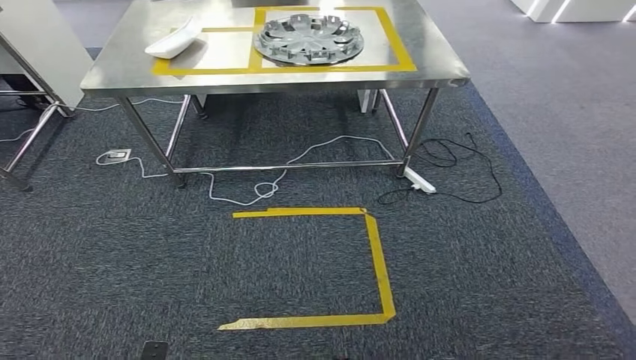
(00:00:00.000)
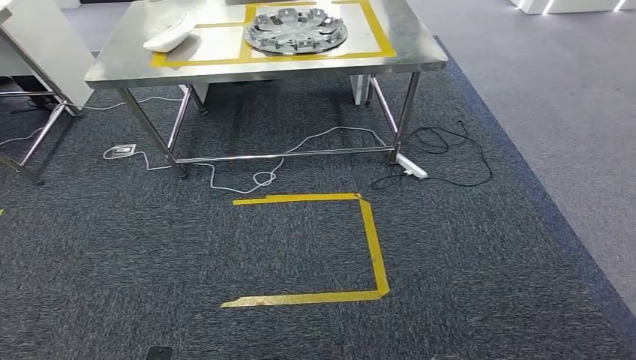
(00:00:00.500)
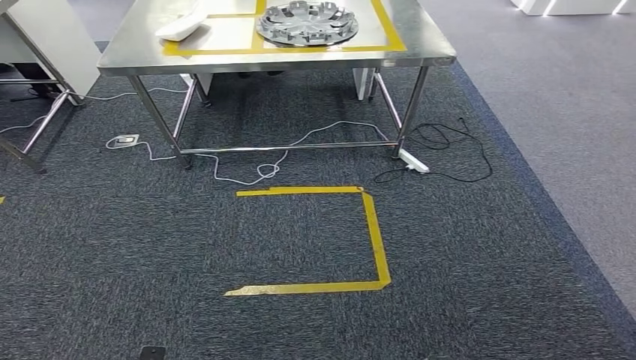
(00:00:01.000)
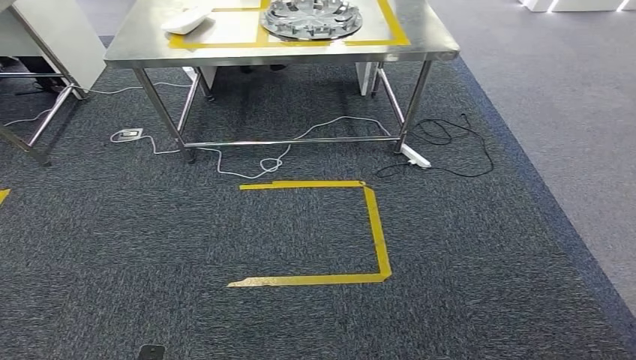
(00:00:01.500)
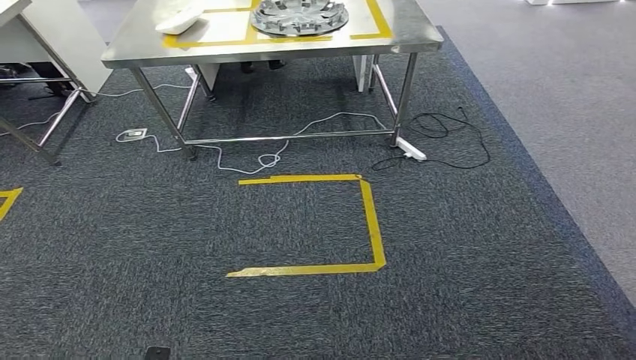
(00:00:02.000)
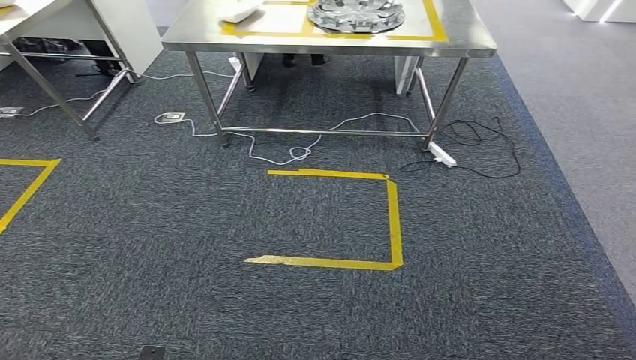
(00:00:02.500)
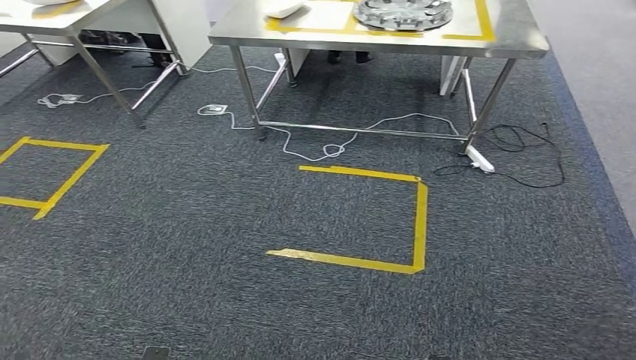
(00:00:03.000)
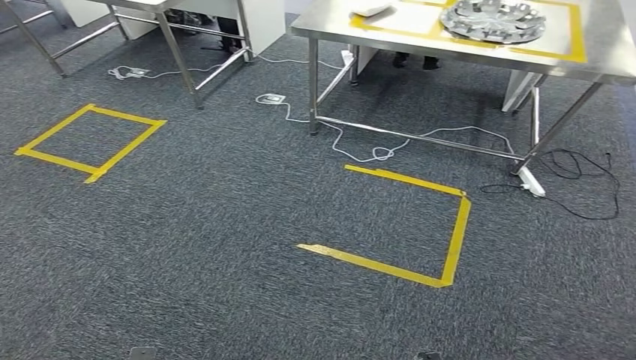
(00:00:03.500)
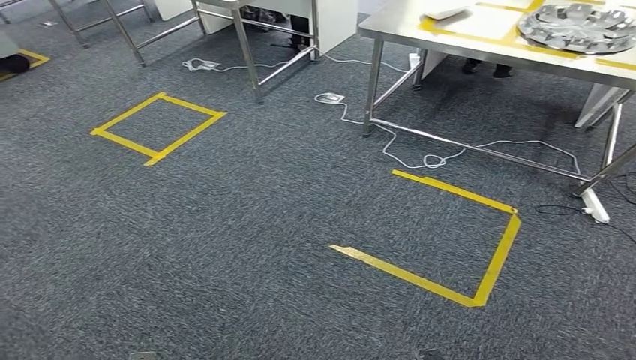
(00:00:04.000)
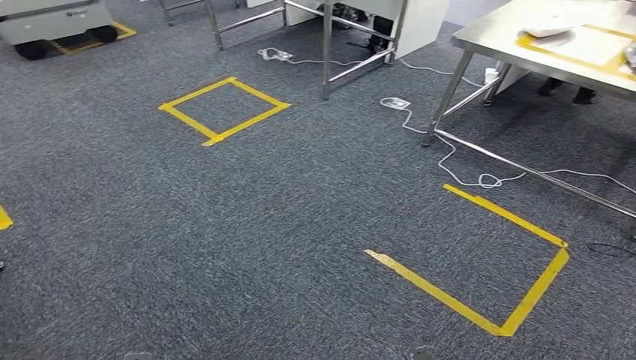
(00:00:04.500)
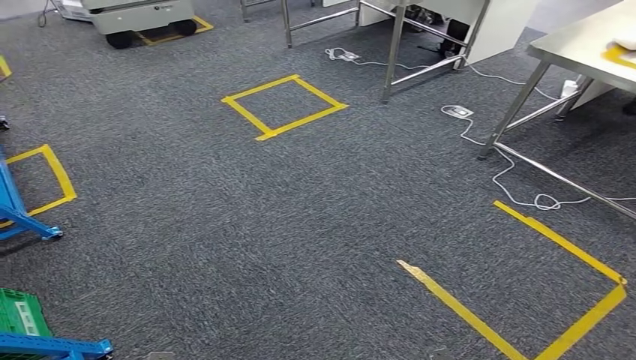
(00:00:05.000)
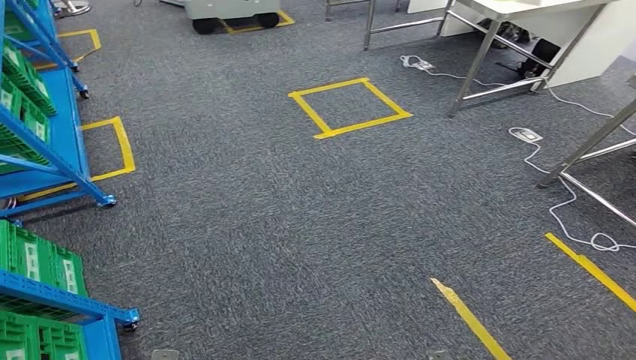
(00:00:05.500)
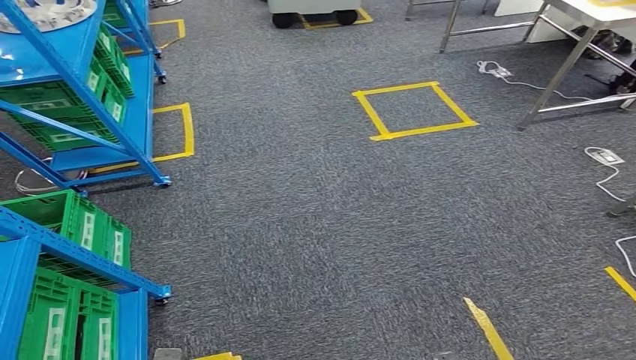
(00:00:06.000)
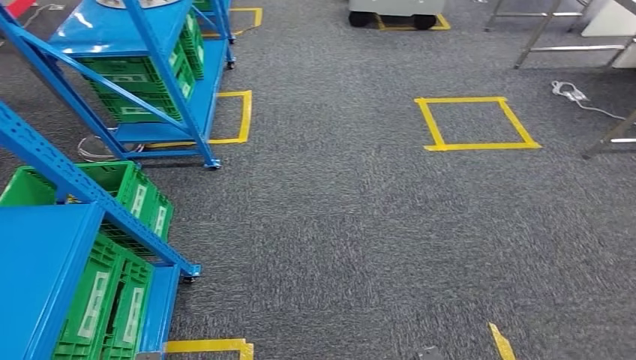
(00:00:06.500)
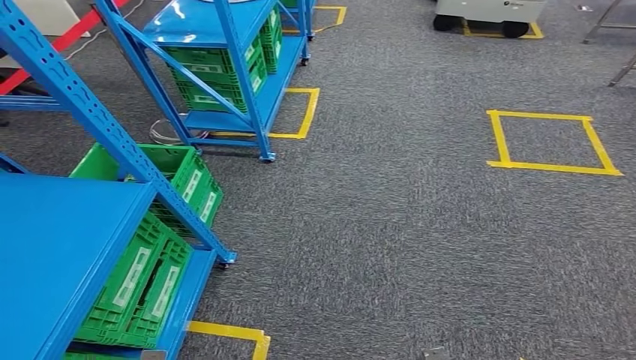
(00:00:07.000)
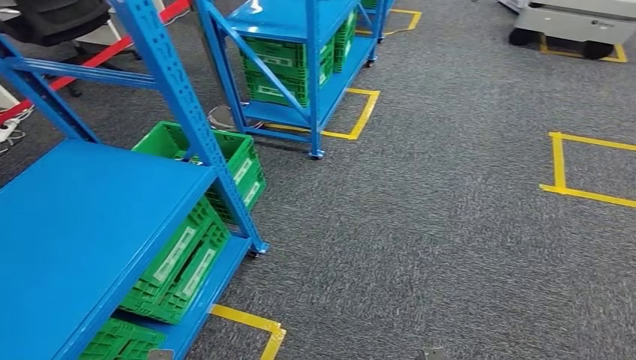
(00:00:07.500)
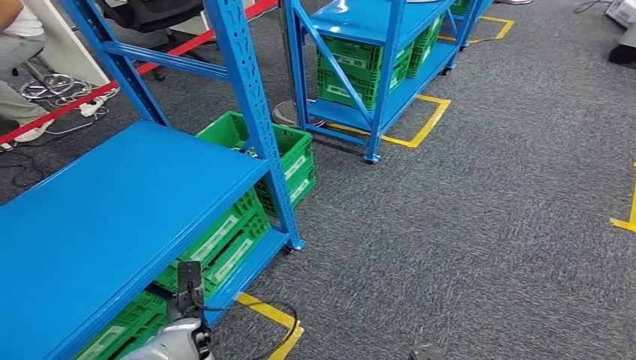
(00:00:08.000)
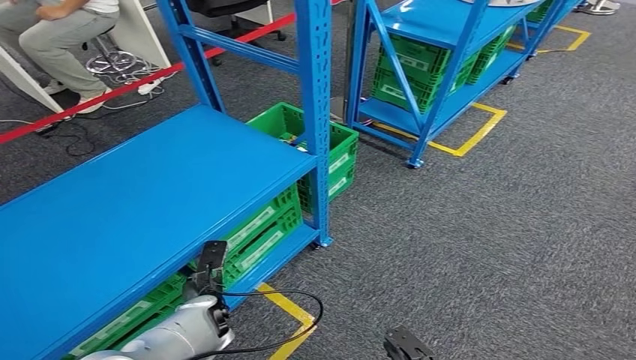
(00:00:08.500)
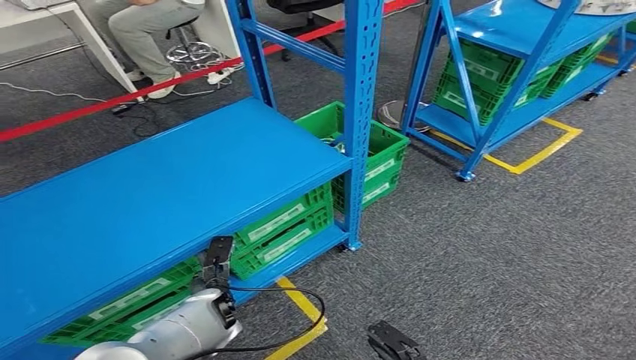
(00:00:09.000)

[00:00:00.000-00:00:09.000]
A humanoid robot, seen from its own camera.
Step, 00:00:00.000 to 00:00:09.000: Return to the initial position at the workbench.
